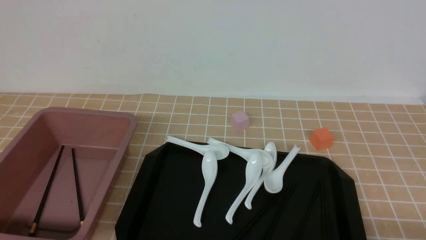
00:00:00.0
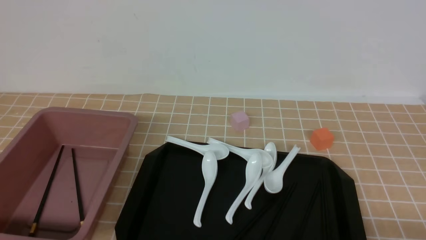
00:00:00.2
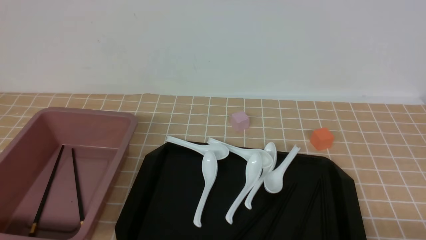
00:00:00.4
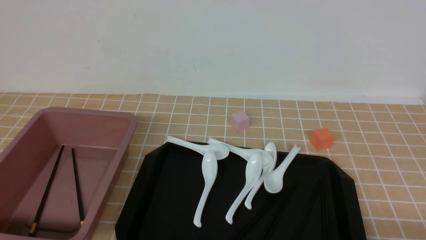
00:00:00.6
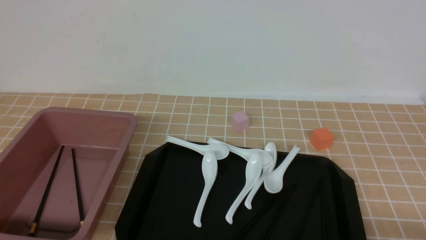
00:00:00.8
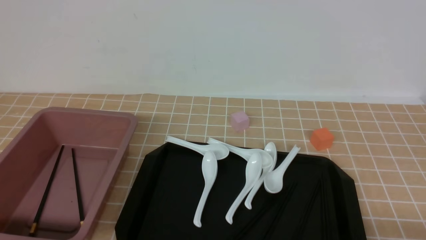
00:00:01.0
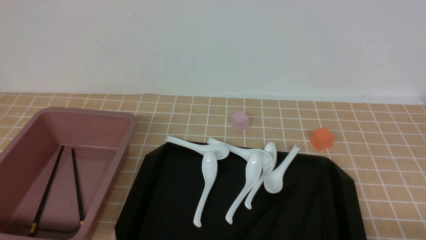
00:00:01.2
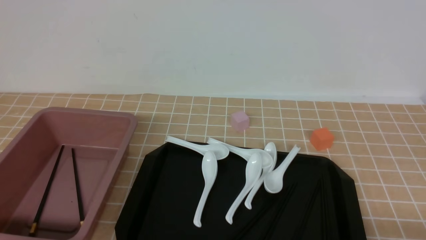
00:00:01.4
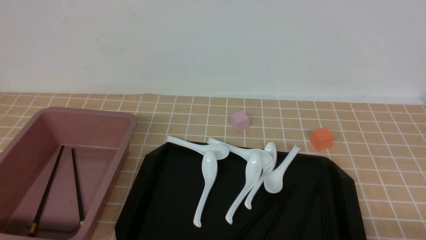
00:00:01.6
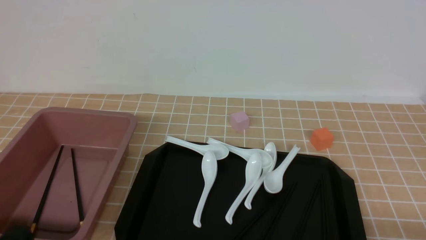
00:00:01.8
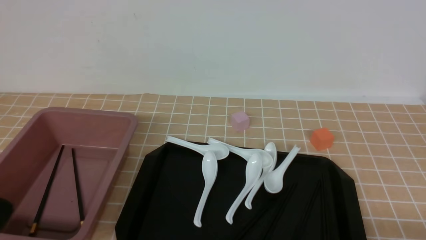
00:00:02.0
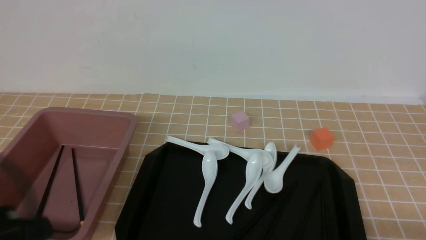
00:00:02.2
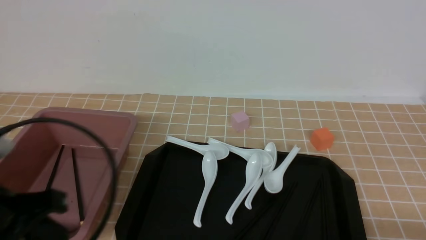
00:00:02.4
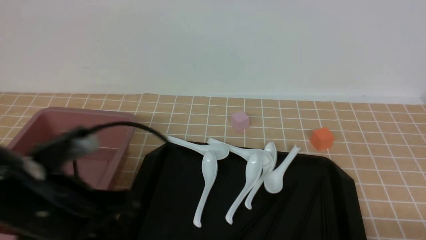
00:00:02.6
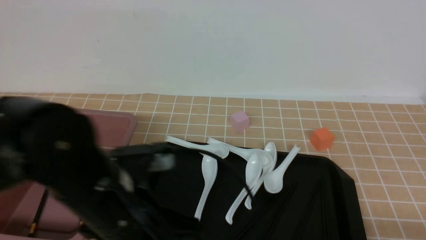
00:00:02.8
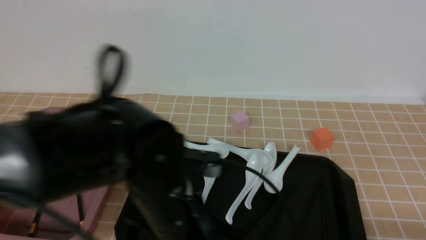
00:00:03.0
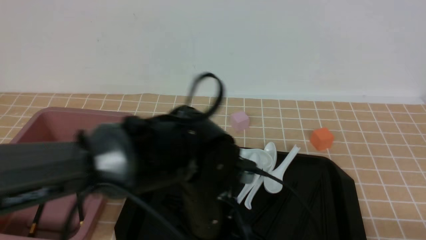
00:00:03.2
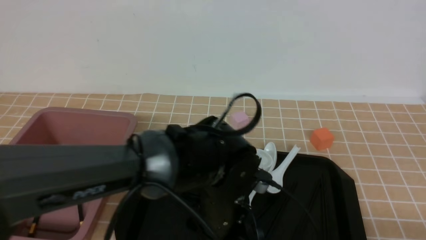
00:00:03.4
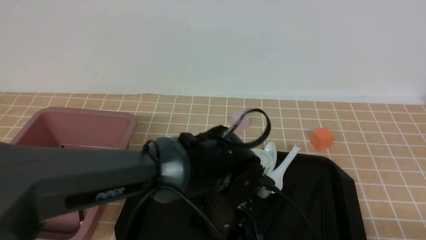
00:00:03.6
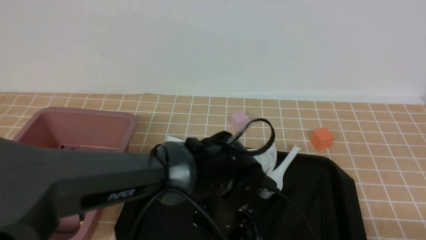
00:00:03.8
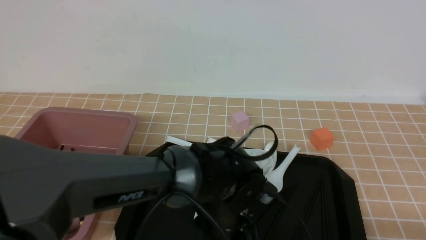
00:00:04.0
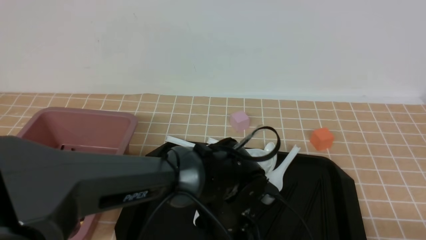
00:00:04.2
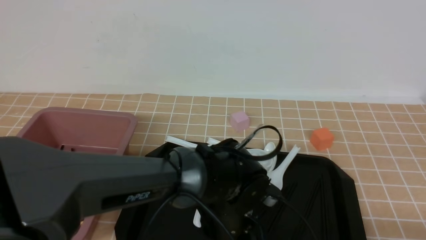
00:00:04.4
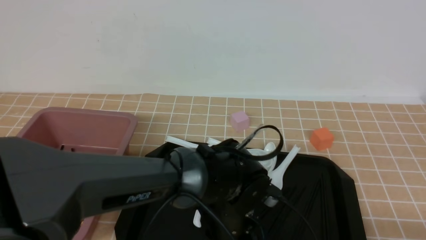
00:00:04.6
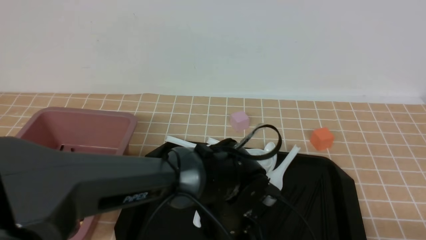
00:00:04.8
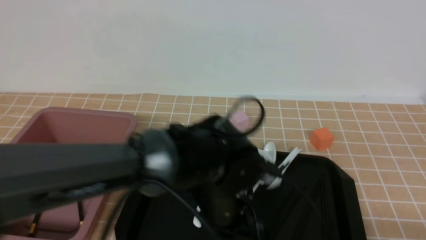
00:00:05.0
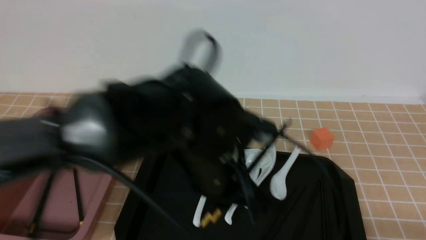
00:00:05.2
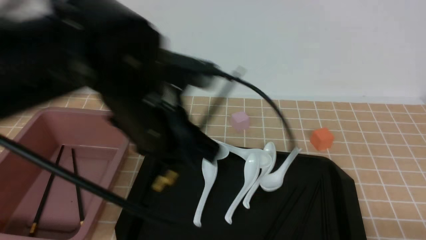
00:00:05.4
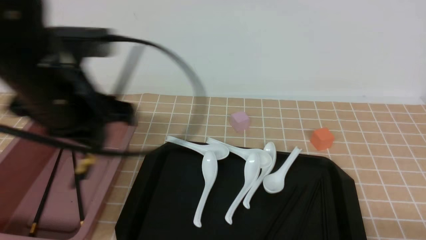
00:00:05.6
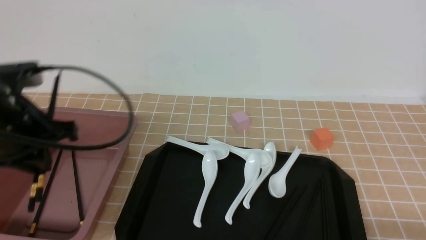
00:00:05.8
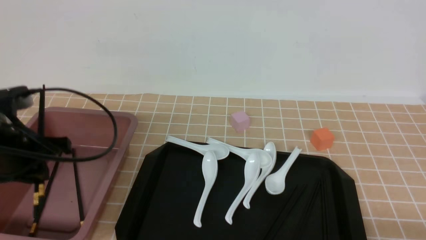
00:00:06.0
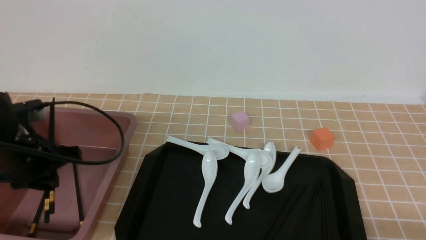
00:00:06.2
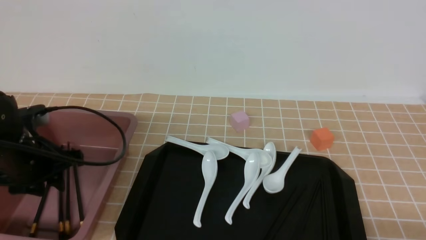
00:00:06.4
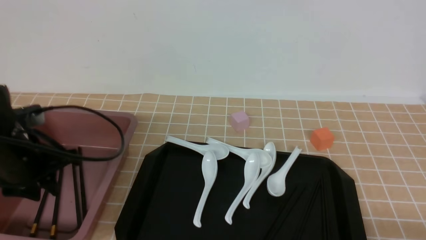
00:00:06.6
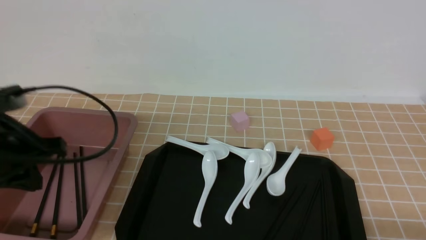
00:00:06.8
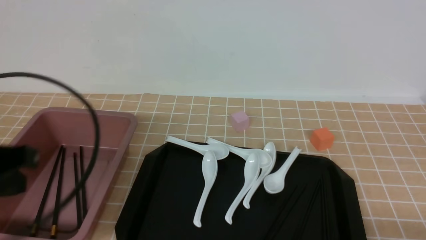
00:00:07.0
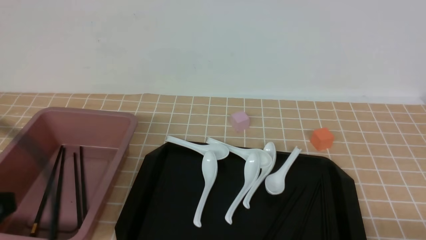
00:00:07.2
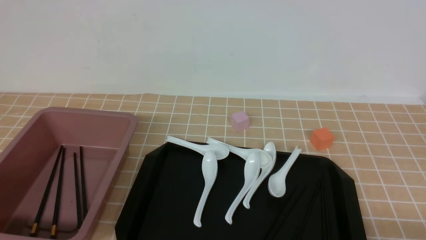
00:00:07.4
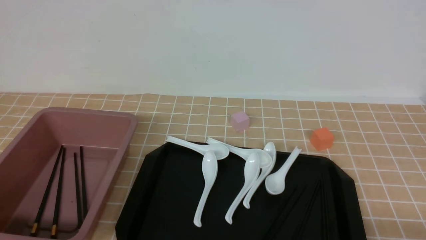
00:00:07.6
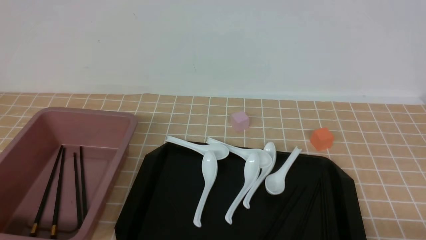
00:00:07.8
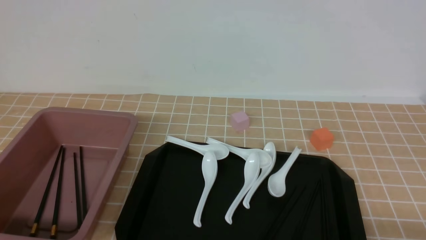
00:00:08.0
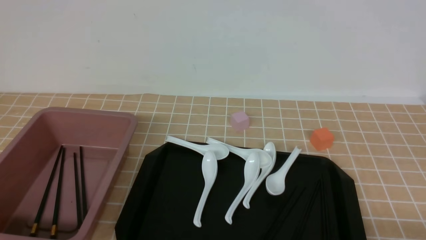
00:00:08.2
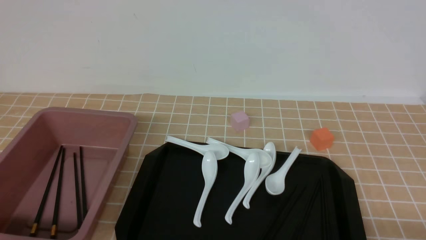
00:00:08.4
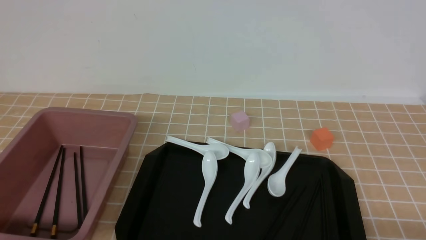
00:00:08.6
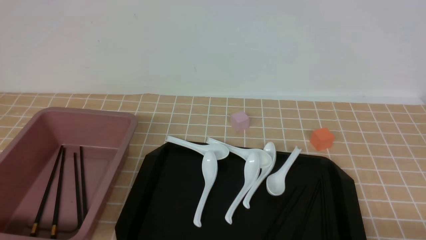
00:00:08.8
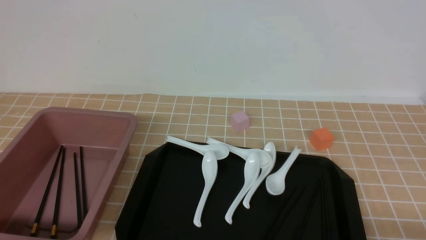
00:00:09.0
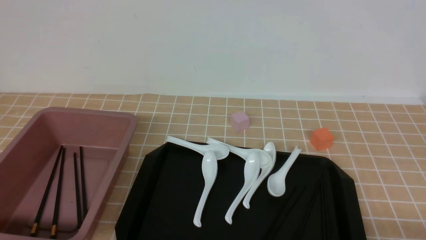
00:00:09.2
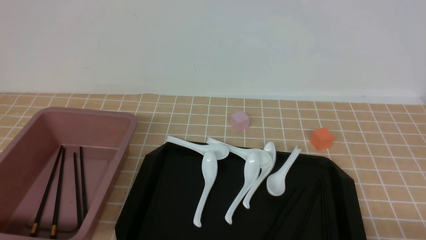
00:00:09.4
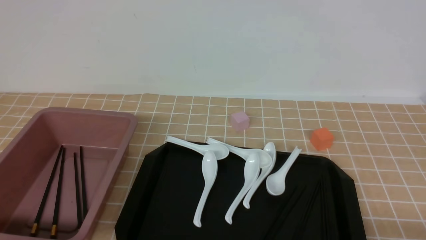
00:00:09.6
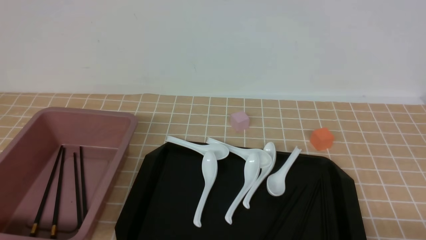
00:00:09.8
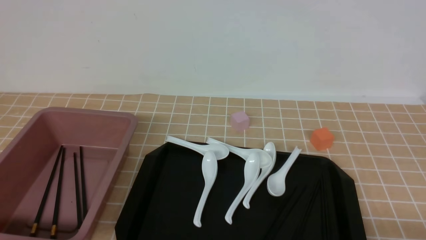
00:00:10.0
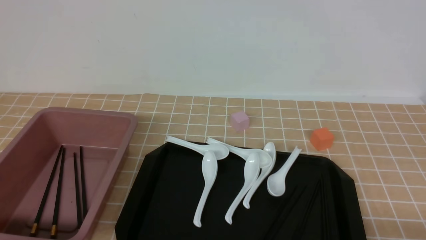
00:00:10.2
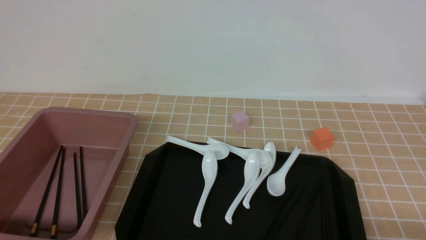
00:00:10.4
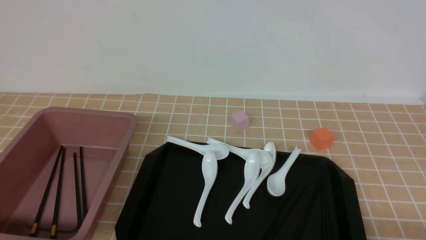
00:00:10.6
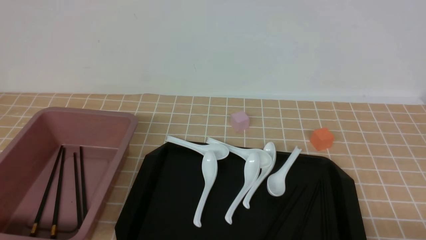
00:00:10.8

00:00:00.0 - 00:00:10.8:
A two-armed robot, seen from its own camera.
Step, 00:00:00.0 - 00:00:05.2: use the left arm to grab a pair of chopsticks.
Step, 00:00:05.4 - 00:00:06.6: use the left arm to put the chopsticks into the lunch box.
00:00:01.6 - 00:00:03.0: The left gripper shifts roughly 25 cm to the right and forward.
00:00:03.0 - 00:00:04.6: The left gripper moves downward and to the right, about 10 cm, and opens, then closes again.
00:00:04.6 - 00:00:06.2: The left gripper moves to the left, approximately 30 cm.
00:00:06.2 - 00:00:07.8: The left gripper heads backward, covering approximately 25 cm, and closes up.
00:00:09.2 - 00:00:10.8: Both grippers stay put.

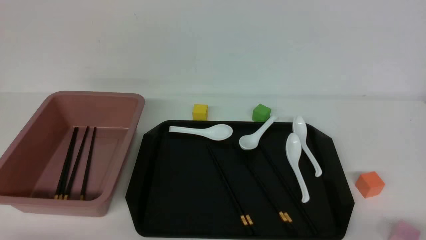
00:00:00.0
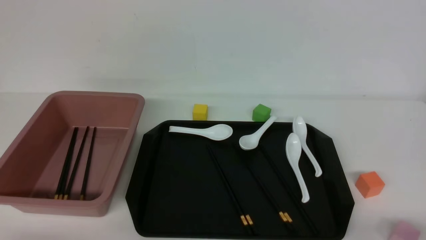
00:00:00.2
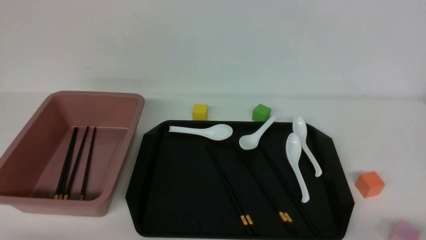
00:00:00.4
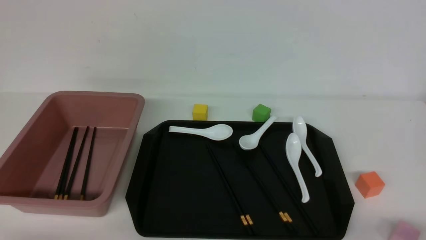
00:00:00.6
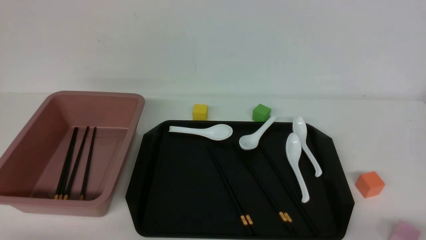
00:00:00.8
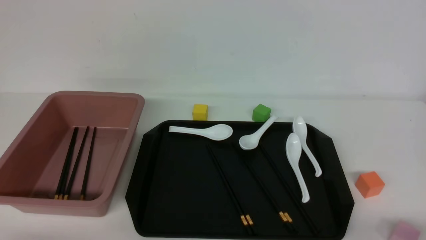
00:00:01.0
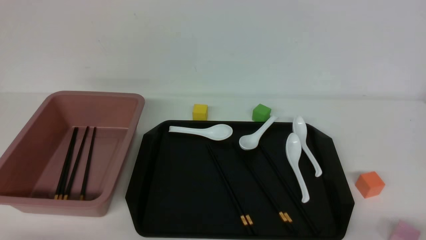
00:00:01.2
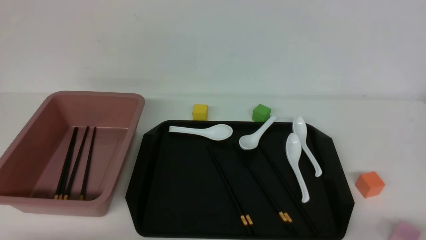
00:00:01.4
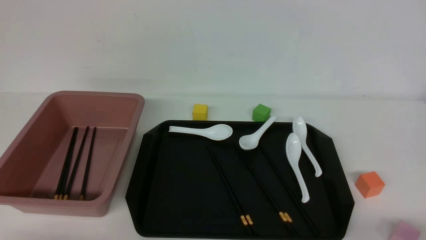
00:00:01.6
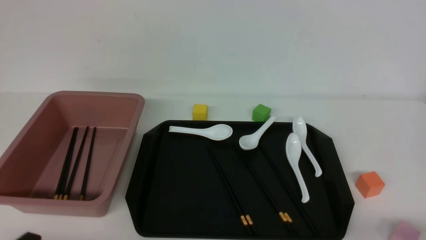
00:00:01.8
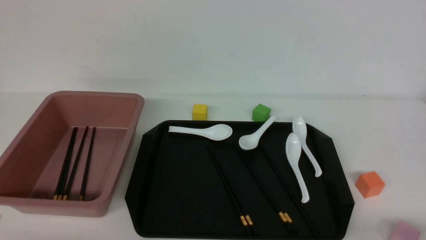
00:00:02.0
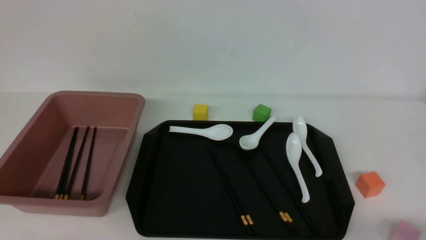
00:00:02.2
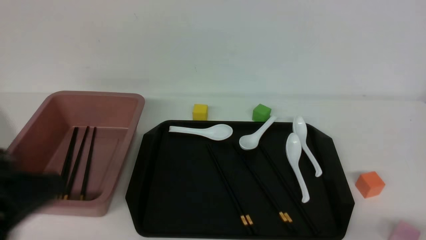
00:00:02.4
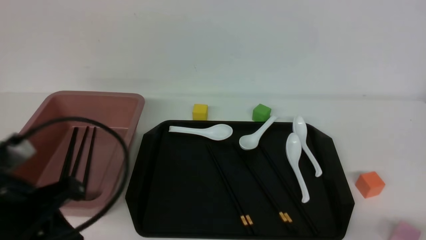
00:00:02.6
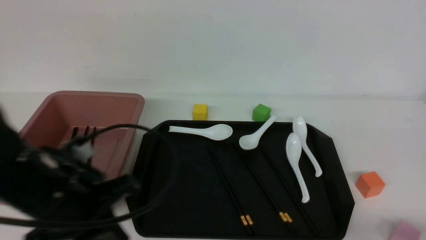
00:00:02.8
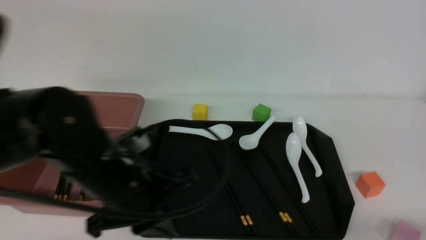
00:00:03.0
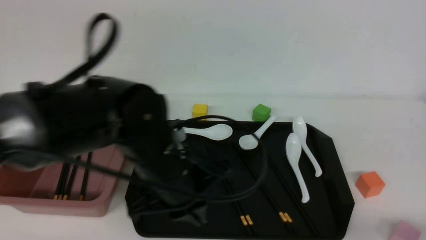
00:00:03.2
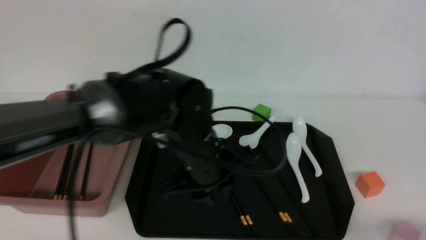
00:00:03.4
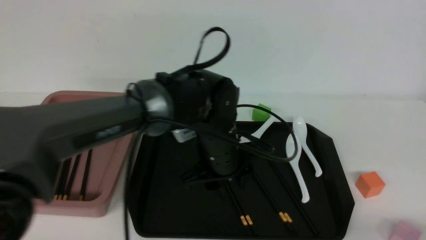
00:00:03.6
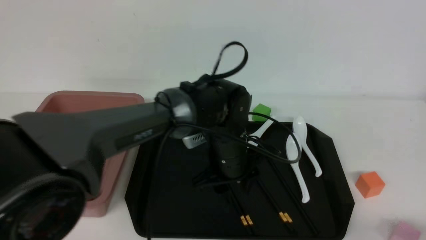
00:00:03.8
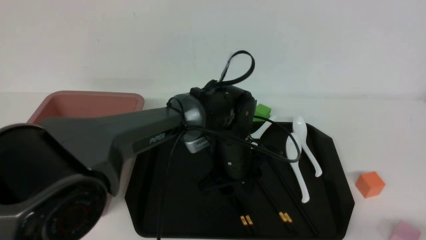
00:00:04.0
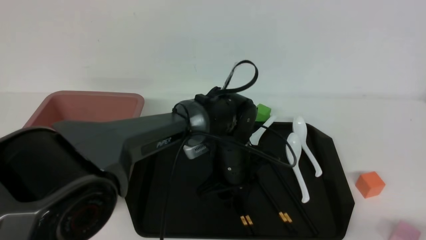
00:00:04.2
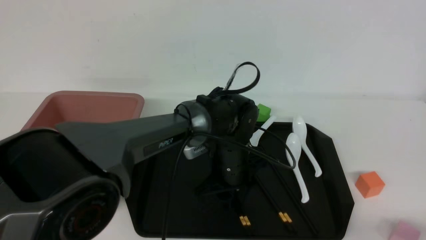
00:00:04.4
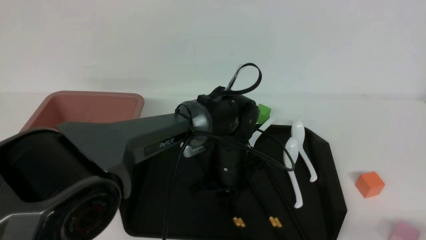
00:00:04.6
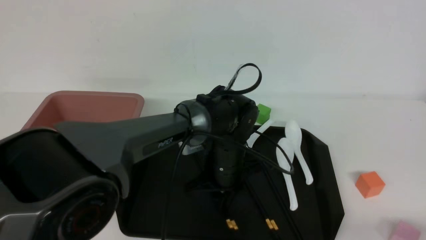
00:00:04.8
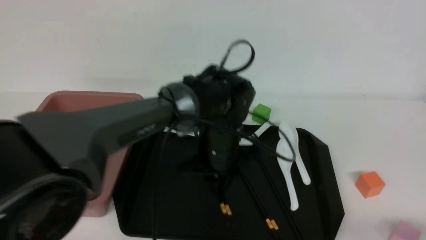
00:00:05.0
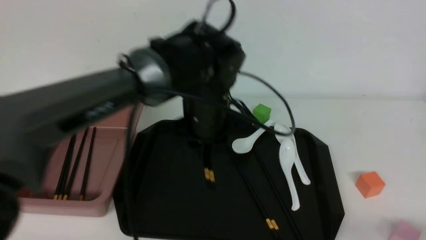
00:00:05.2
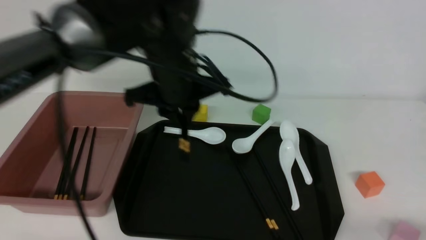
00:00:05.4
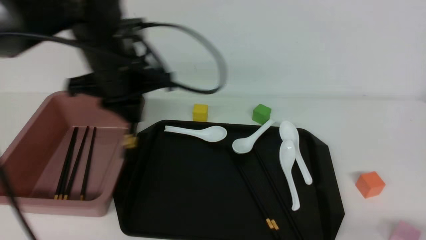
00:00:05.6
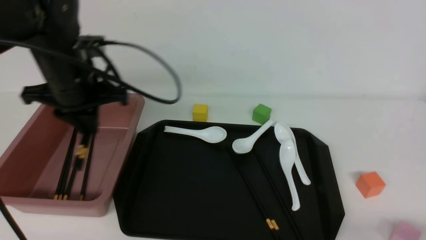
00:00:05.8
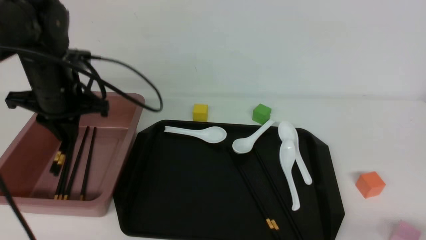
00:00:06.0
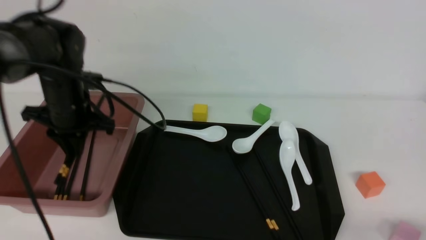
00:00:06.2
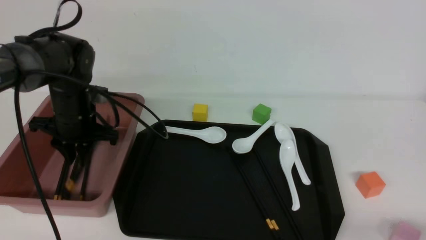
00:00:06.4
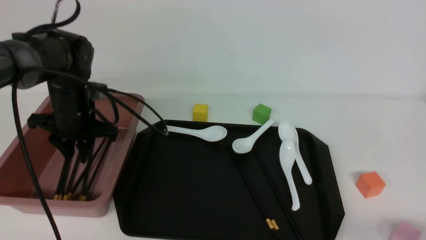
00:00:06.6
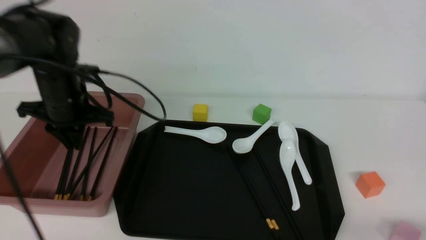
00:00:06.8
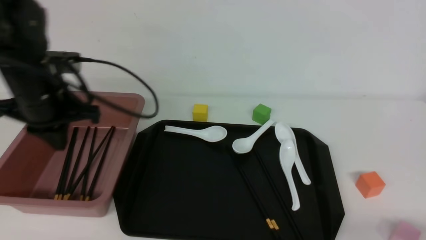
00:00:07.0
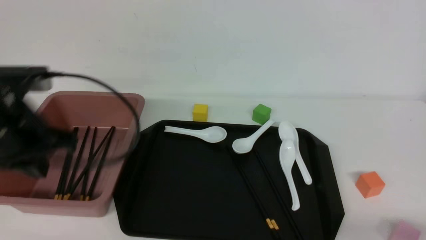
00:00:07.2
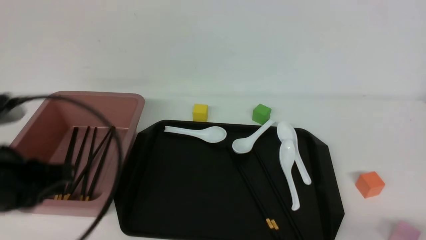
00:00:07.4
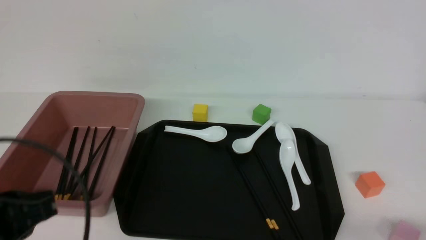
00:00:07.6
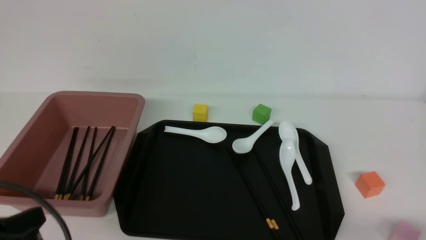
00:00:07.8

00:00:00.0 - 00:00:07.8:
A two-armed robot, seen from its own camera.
Step, 00:00:00.0 - 00:00:05.2: use the left arm to grab a pair of chopsticks.
Step, 00:00:05.6 - 00:00:06.8: use the left arm to put the chopsticks into the lunch box.
00:00:01.6 - 00:00:03.2: The left gripper is displaced forward and to the right by about 30 cm.
00:00:03.2 - 00:00:04.6: The left gripper moves forward, downward and to the right, some 15 cm, and opens, then closes again.
00:00:04.6 - 00:00:06.2: The left gripper moves to the left, roughly 25 cm.
00:00:06.2 - 00:00:07.8: The left gripper shifts approximately 30 cm backward, and closes up.
